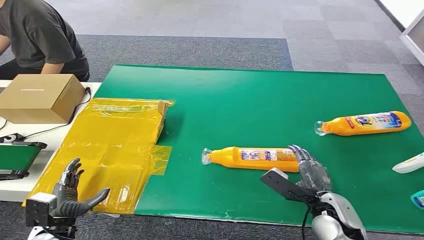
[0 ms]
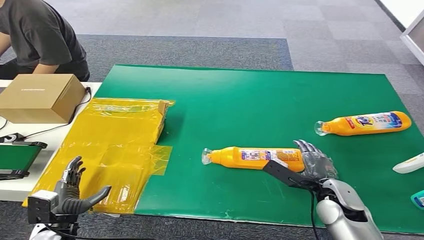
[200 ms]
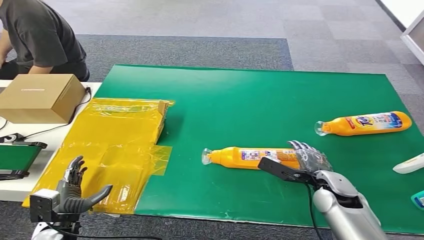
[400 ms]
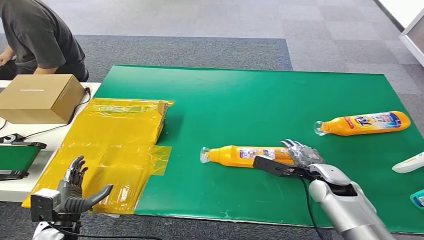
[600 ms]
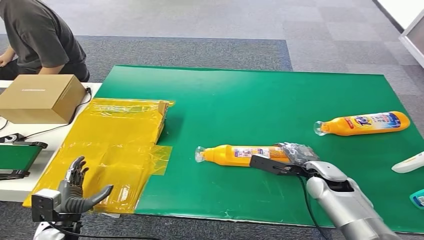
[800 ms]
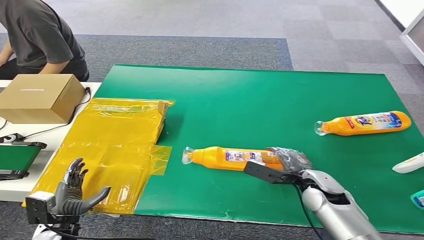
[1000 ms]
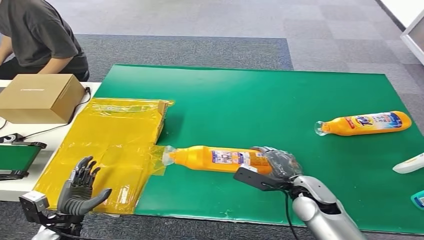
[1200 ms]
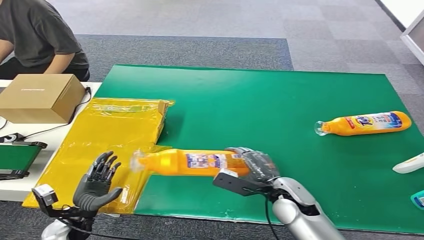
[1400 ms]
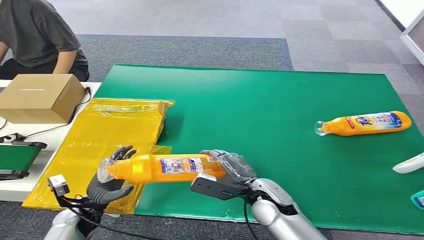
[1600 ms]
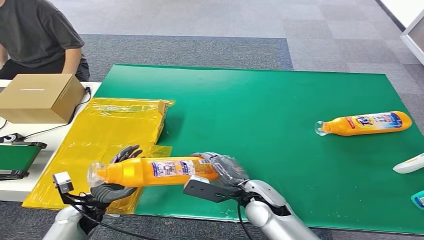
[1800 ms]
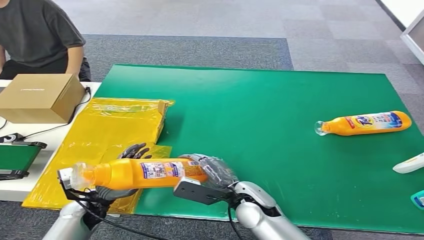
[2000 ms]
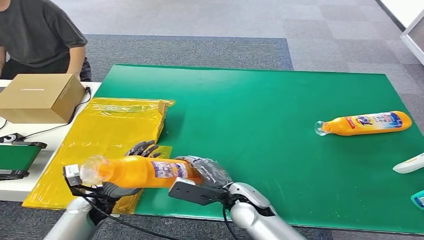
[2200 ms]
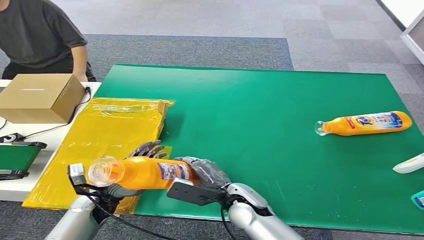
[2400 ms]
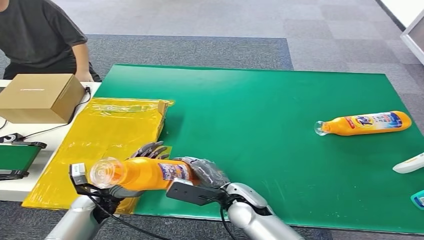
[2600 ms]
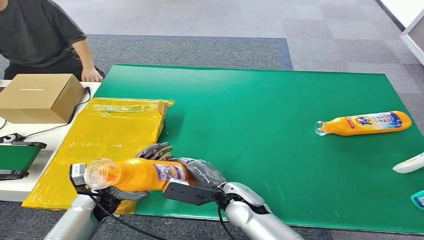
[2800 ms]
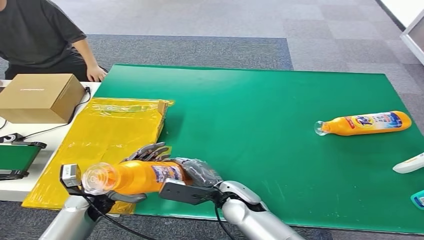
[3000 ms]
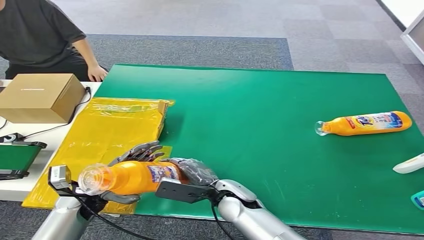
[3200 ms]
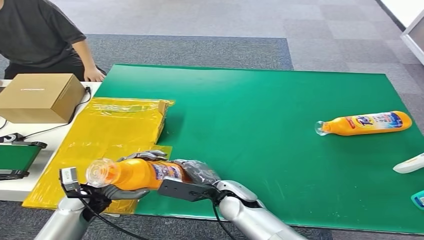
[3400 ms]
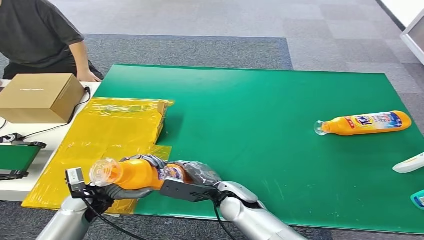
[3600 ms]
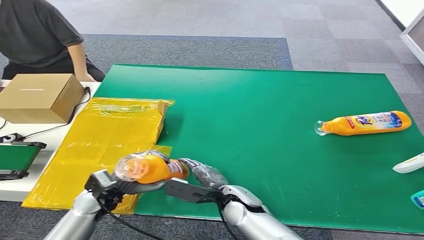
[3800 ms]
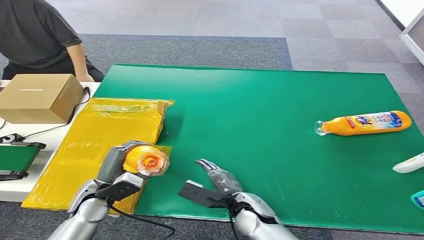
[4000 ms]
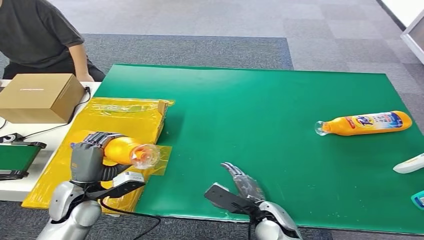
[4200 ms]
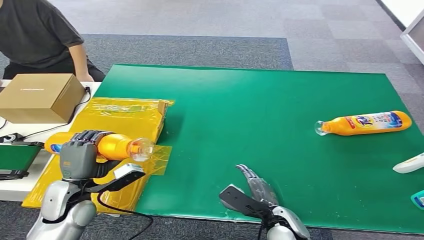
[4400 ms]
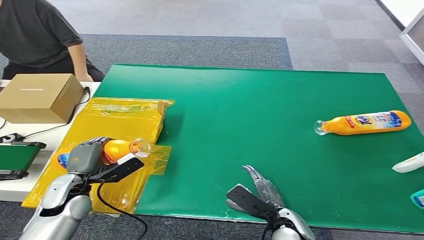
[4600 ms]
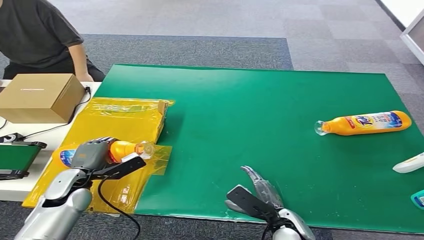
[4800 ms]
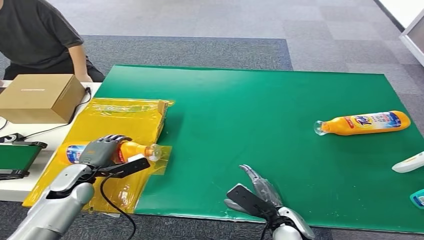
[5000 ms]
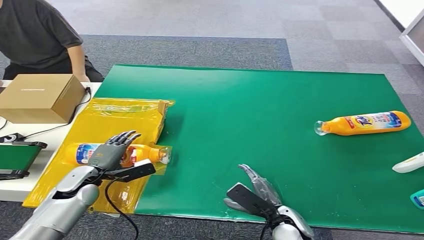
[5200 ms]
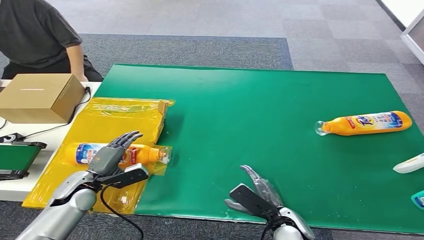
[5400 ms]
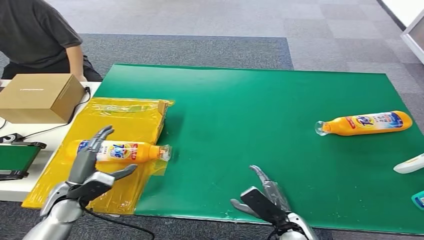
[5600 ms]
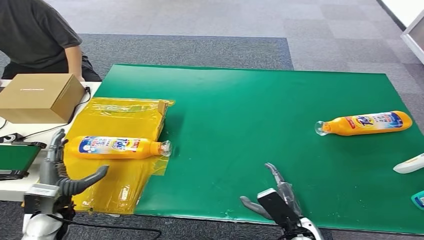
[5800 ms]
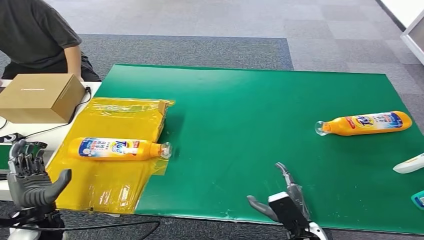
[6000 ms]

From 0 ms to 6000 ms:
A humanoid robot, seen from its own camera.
Step, from 0 ms to 1200 ms: Pick up the bottle from the table.
Step, from 1400 ms to 6000 ms: Turn the bottle to the front side.
From 1600 ms to 3000 ms: The right hand goes about 5 cm to the left; the left hand ends up about 5 cm from where it was.
From 3000 ms to 4400 ms: The right hand is displaced to the right and backward by approximately 10 cm. Meanwhile the left hand shifts roughly 5 cm upward.
From 4400 ms to 6000 ms: The left hand heads to the left, covering approximately 5 cm, while the right hand changes place by approximately 5 cm.

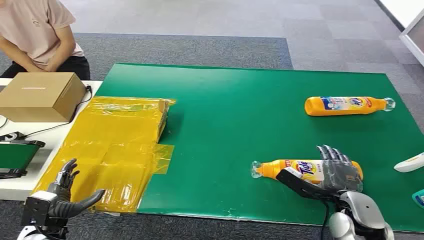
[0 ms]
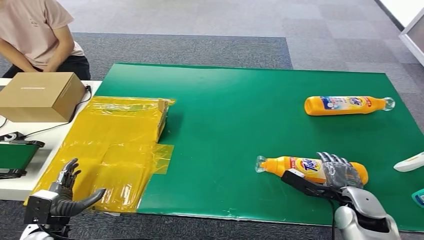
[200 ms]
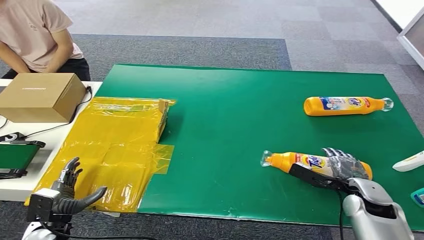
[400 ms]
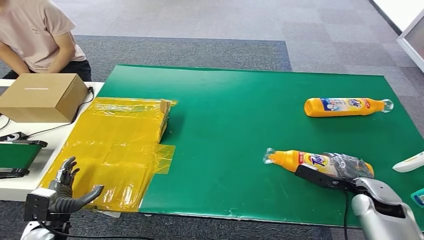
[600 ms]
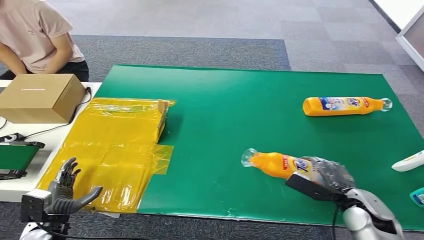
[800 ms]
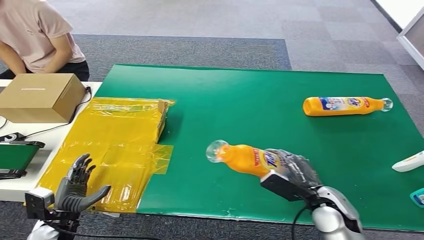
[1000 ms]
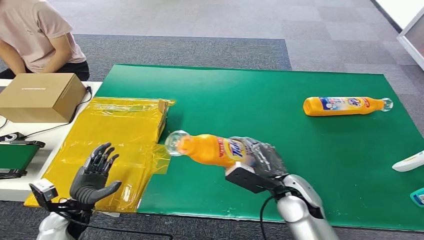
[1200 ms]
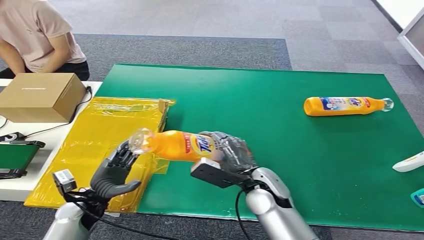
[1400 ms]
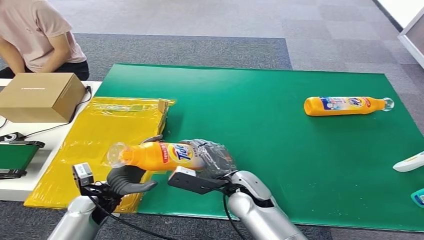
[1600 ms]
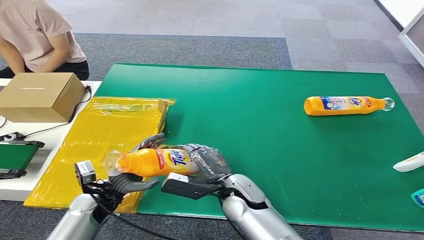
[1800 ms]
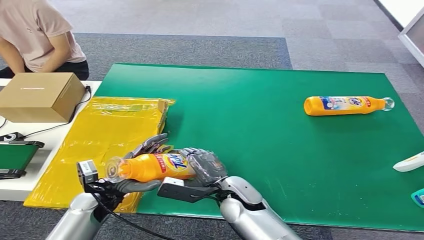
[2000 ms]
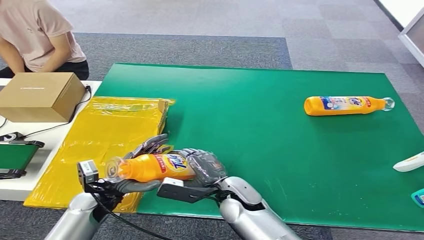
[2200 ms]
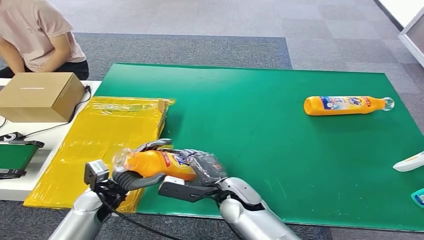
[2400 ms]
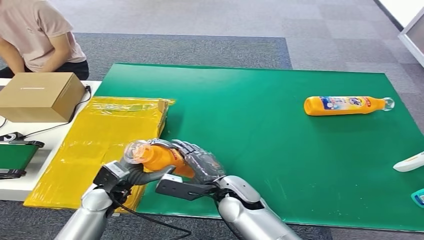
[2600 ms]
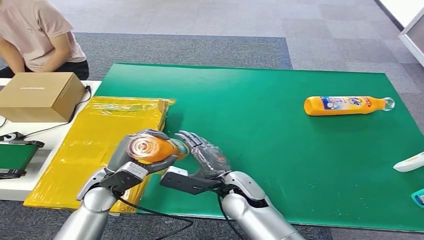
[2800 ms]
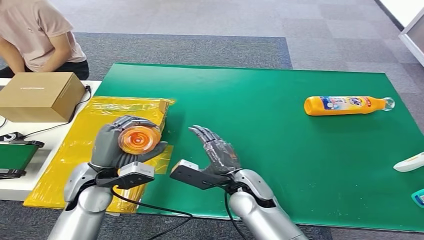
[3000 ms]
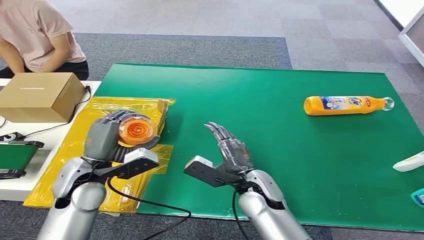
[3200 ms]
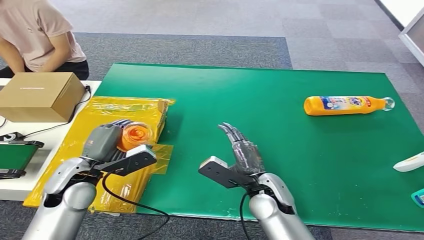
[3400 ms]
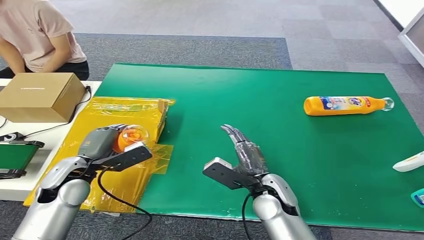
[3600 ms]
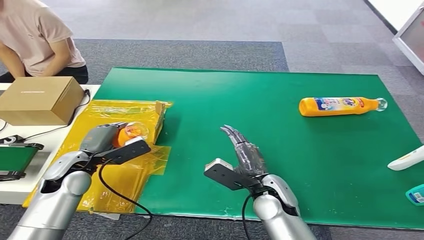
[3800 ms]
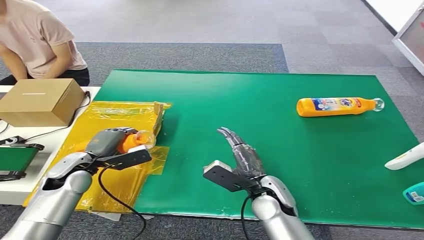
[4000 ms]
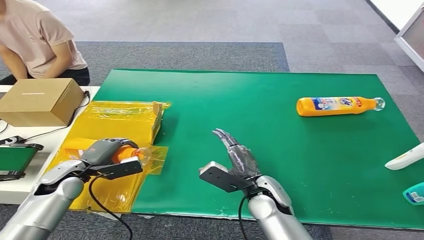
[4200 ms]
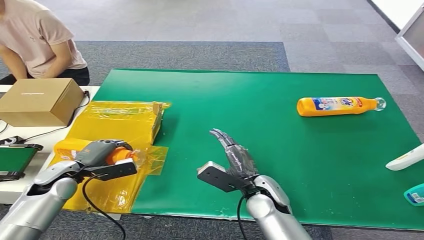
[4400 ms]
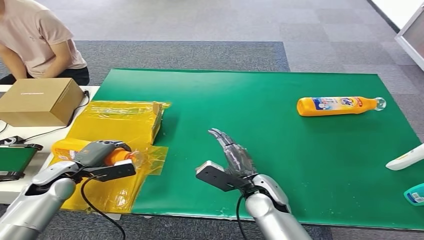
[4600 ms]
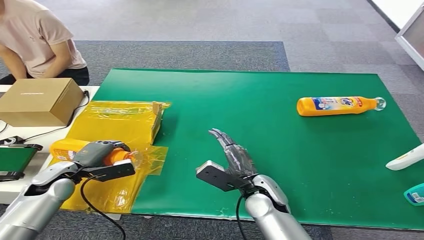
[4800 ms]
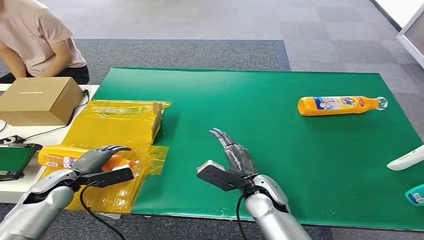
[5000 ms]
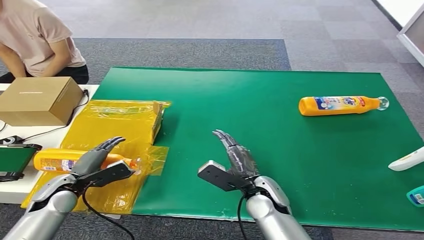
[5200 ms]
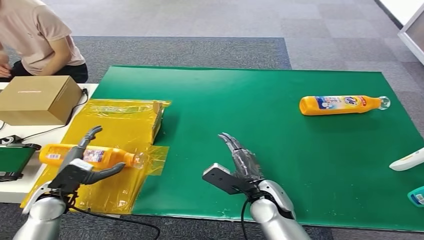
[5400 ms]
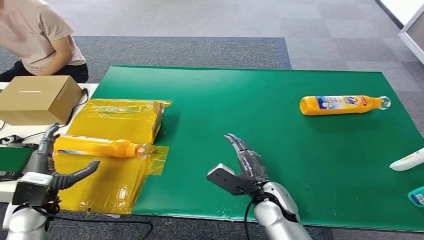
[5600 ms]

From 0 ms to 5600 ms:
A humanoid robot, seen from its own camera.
Step, from 0 ms to 1000 ms: Pick up the bottle from the table.
Step, from 1200 ms to 5600 ms: Turn the bottle to the front side.
From 1400 ms to 2800 ms: The left hand moves upward and to the right, roughly 10 cm; the right hand shifts about 5 cm to the left.

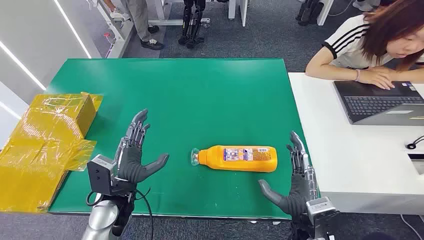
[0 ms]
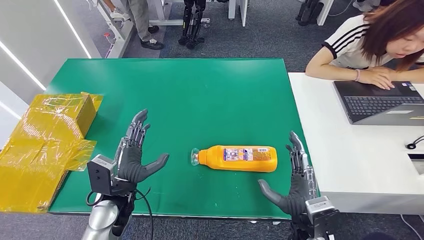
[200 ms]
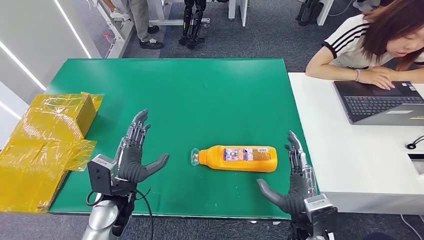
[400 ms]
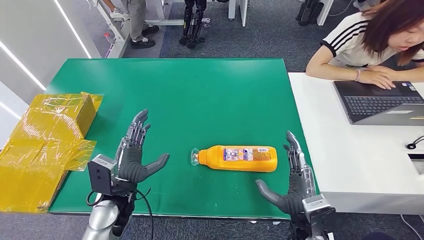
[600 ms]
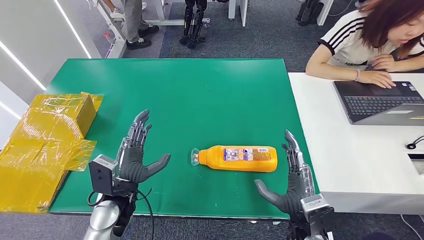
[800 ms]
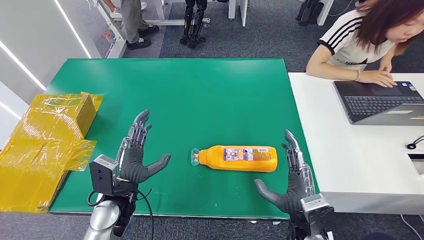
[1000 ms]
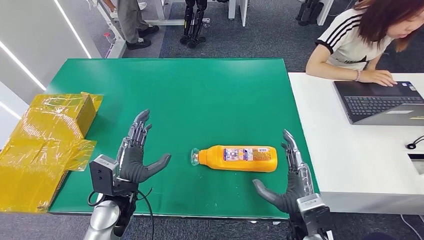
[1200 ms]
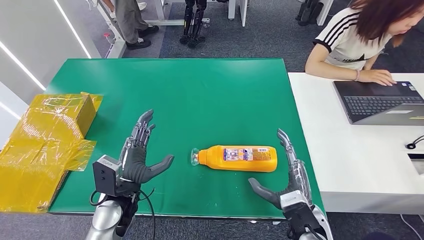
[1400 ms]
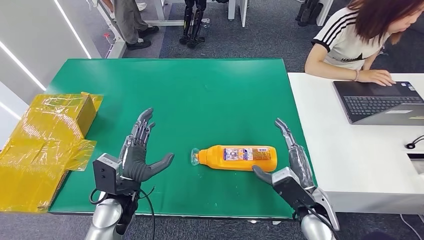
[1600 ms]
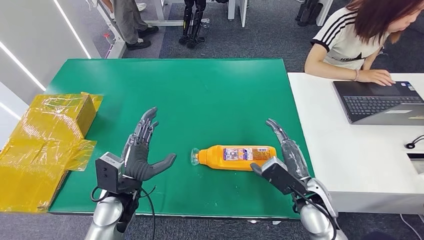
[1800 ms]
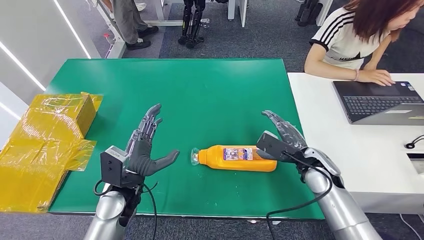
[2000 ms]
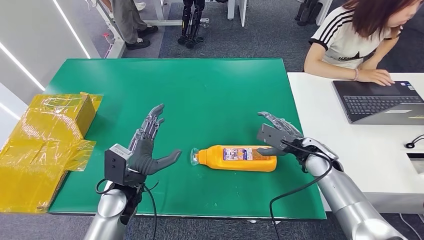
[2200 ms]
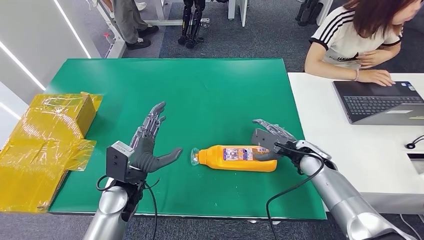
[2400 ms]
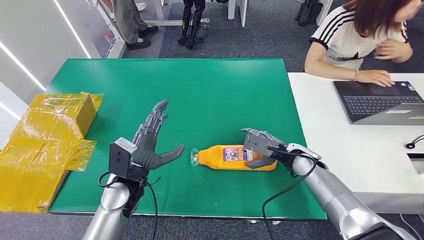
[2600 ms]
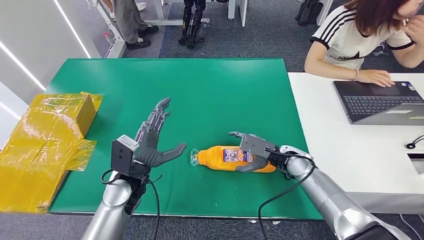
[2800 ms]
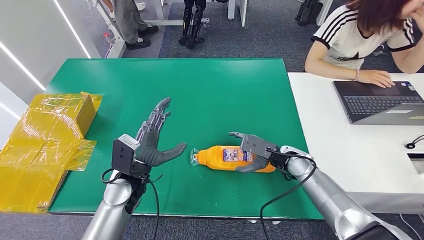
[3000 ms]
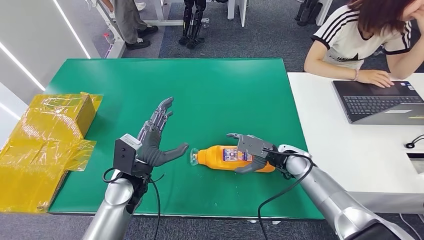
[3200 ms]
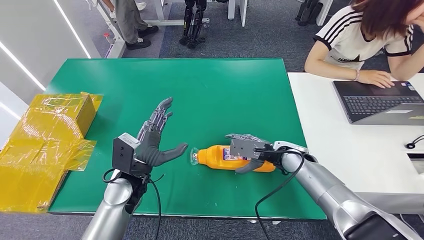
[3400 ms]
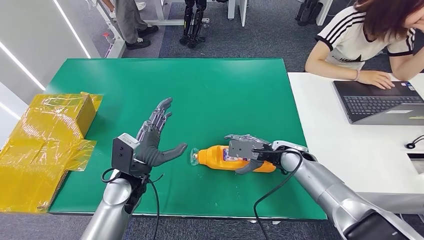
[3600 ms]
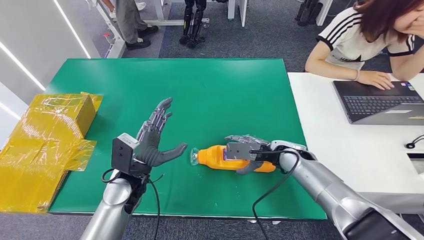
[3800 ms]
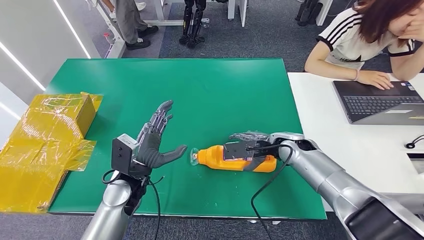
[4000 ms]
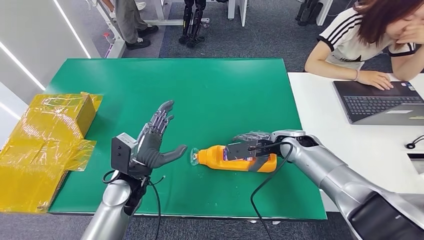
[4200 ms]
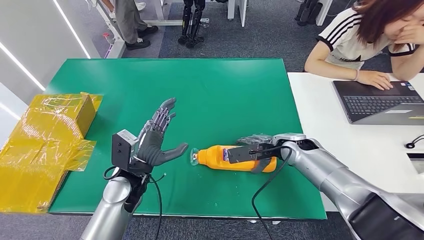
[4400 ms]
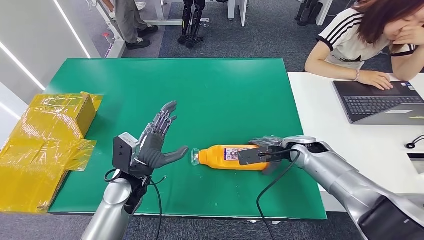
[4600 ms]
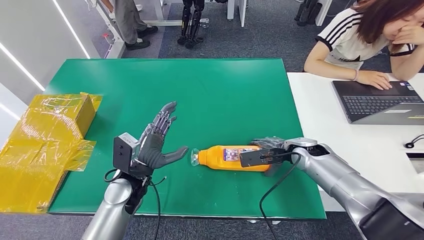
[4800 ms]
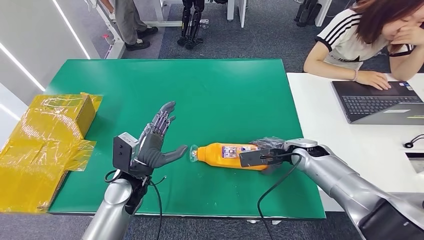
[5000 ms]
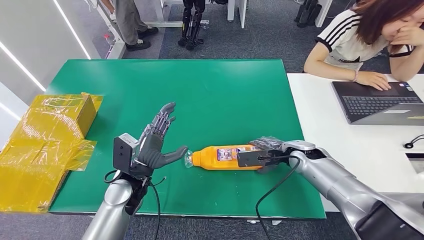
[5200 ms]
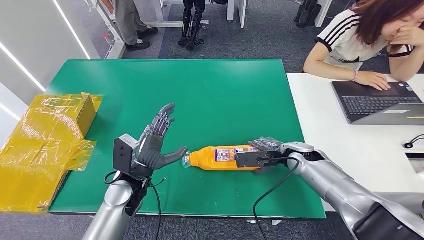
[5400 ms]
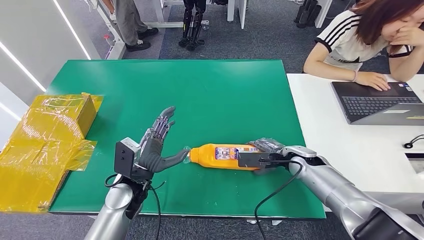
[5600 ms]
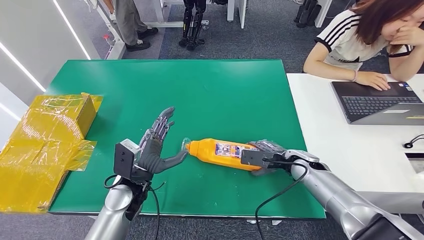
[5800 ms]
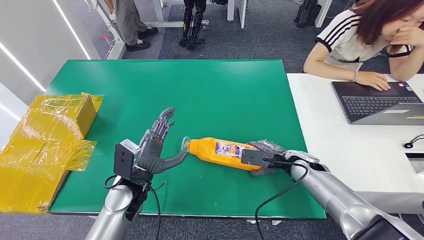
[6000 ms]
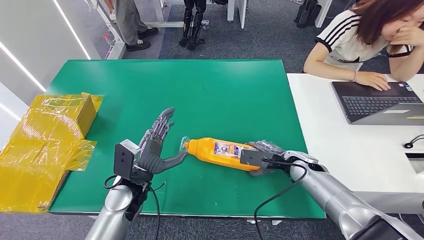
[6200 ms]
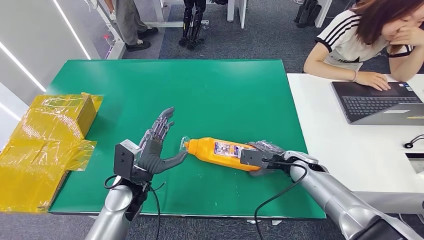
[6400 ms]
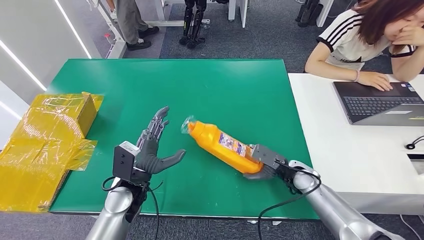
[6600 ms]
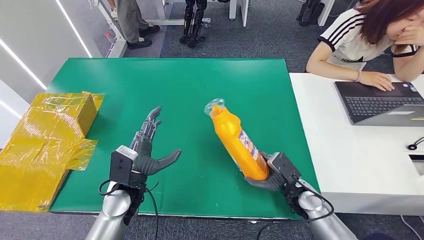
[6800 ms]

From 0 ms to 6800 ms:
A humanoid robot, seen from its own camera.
From 1400 ms to 2800 ms: The right hand goes some 15 cm forward.
From 2800 ms to 4000 ms: The right hand moves some 5 cm.
From 4000 ms to 5400 ms: The right hand changes place by roughly 5 cm.
